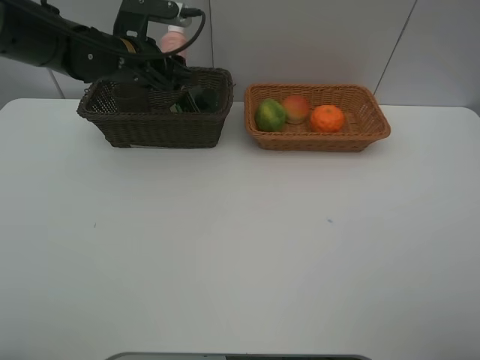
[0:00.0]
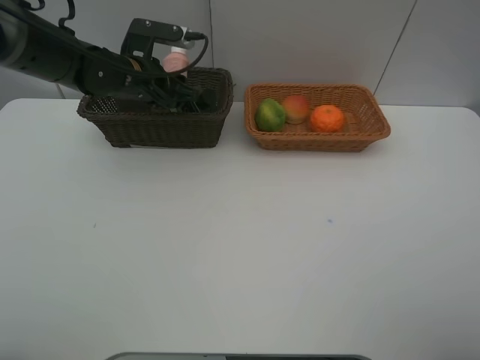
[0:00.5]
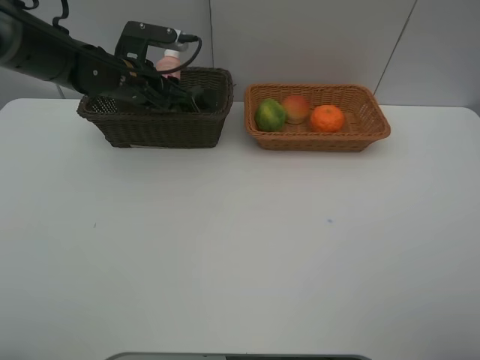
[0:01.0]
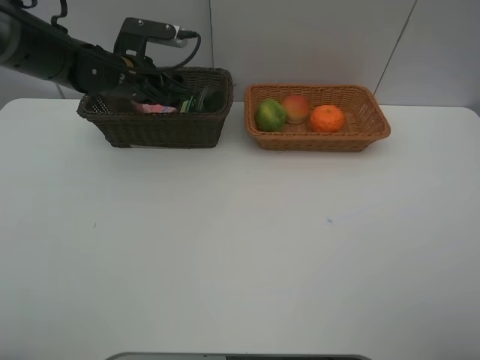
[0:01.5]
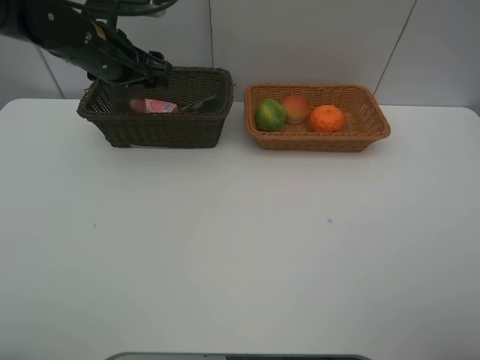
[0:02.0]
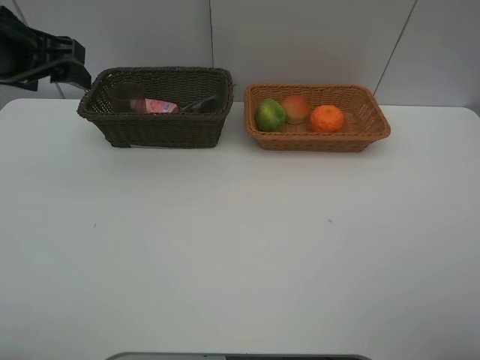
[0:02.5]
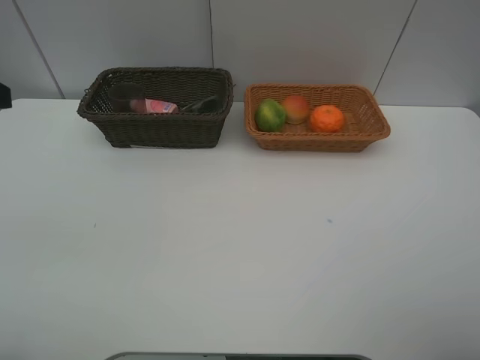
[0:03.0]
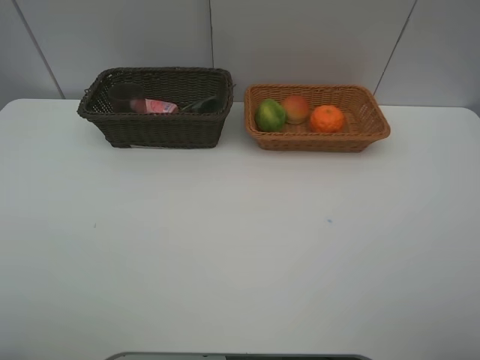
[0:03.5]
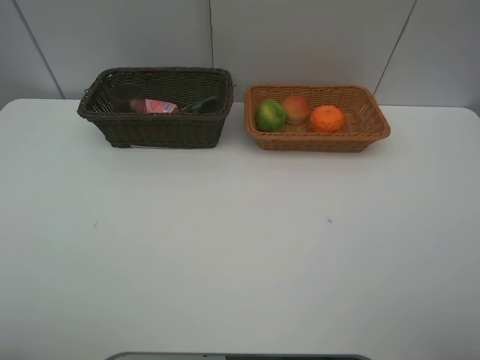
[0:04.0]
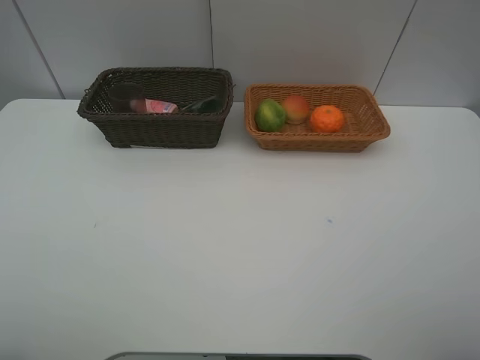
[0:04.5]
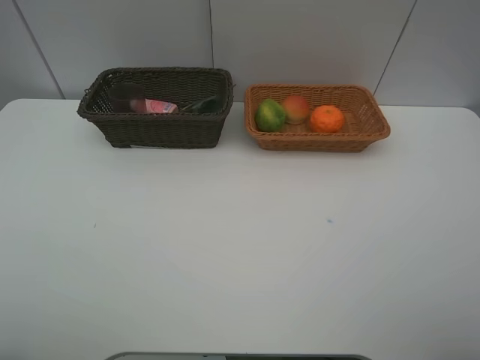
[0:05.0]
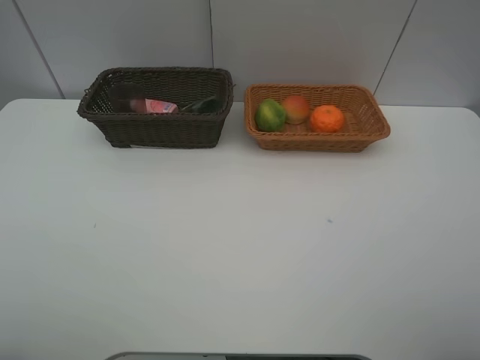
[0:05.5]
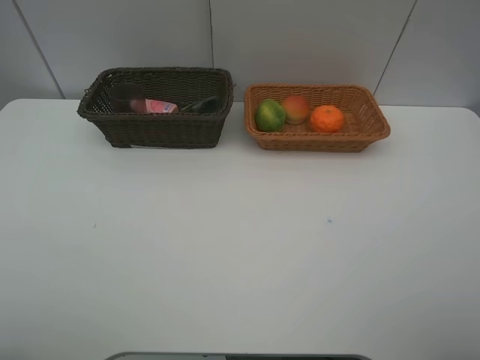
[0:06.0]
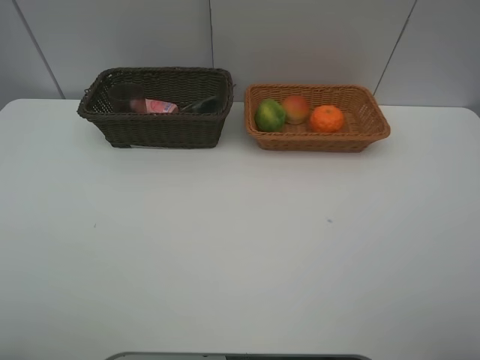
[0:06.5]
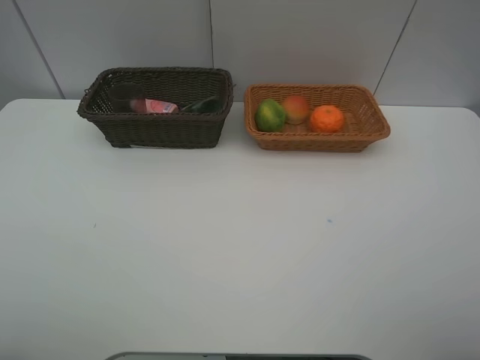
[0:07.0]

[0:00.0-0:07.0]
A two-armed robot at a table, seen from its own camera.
Task of the whole recording: place multiple objects separately in different baskets.
0:00.0 to 0:02.0: The left gripper ends up about 5 cm from where it was.
0:02.0 to 0:03.5: The left gripper travels backward by some 35 cm.
